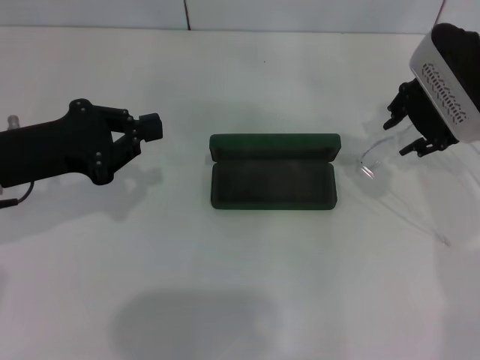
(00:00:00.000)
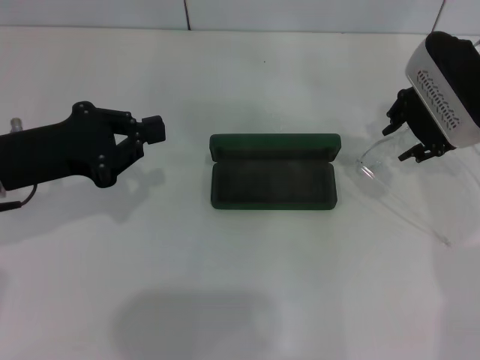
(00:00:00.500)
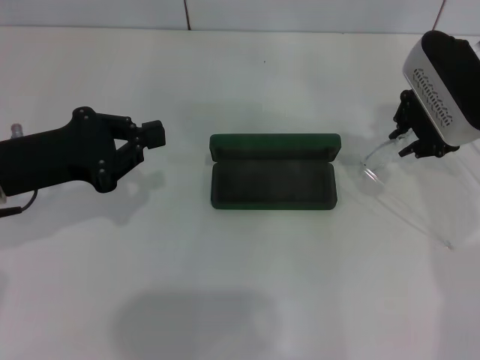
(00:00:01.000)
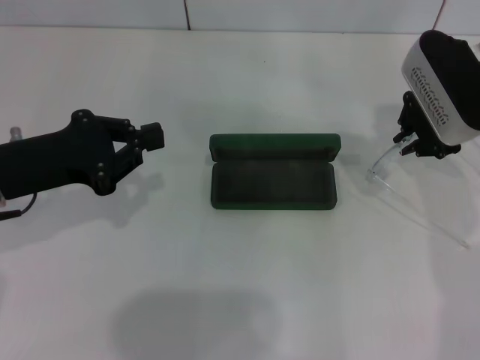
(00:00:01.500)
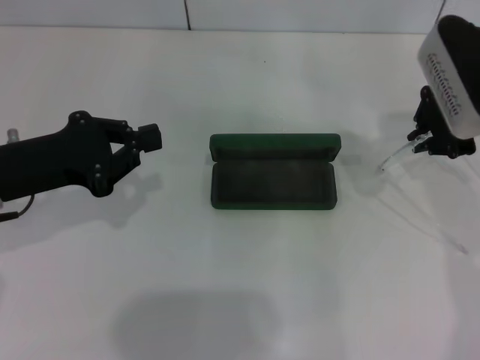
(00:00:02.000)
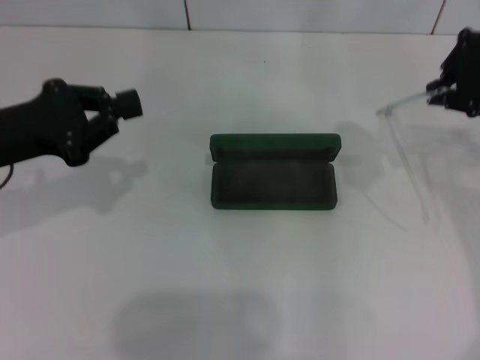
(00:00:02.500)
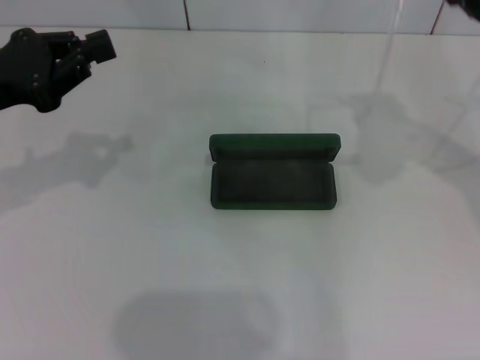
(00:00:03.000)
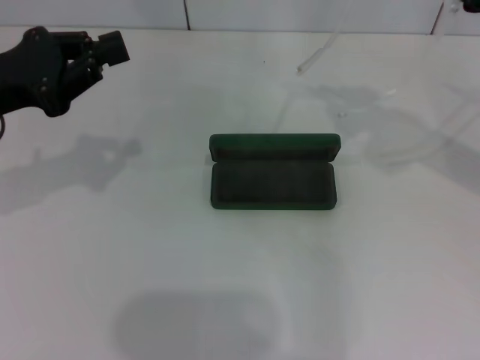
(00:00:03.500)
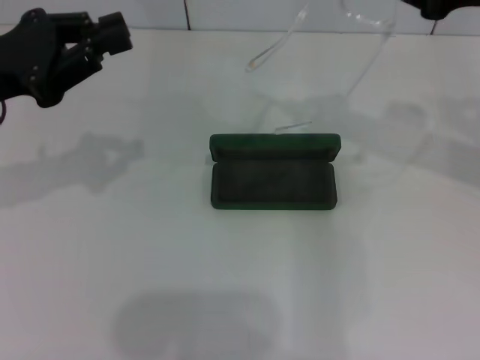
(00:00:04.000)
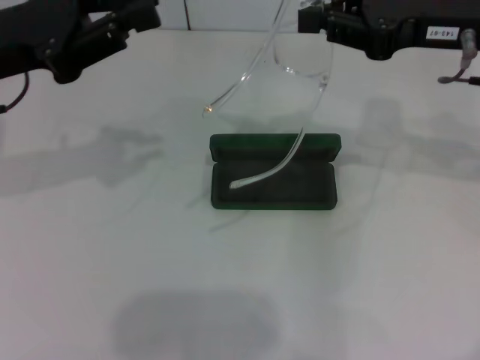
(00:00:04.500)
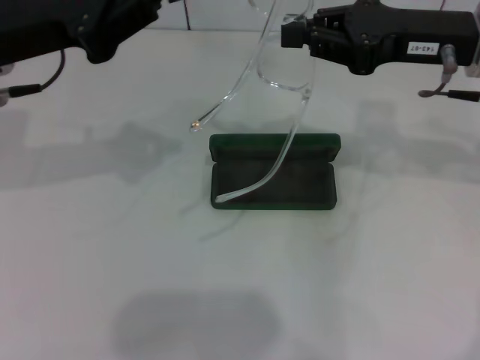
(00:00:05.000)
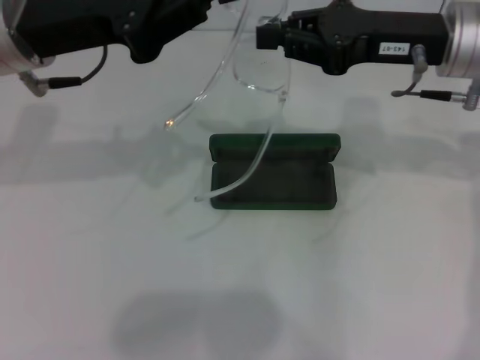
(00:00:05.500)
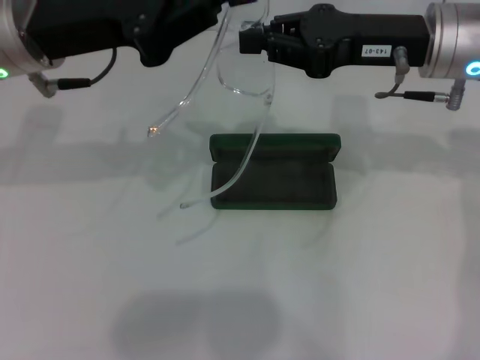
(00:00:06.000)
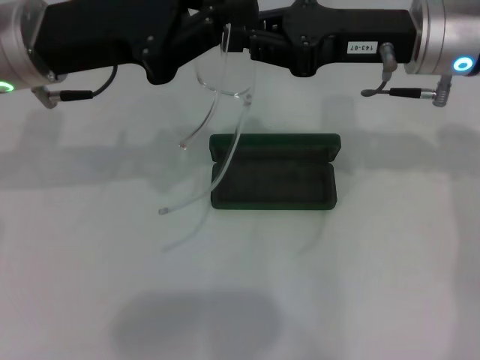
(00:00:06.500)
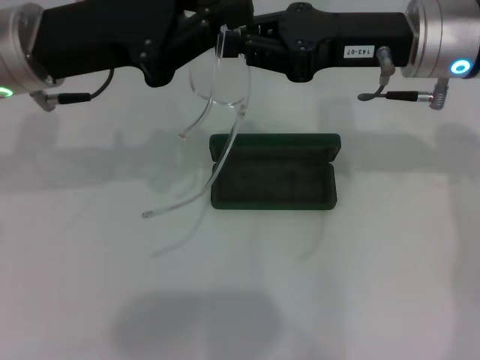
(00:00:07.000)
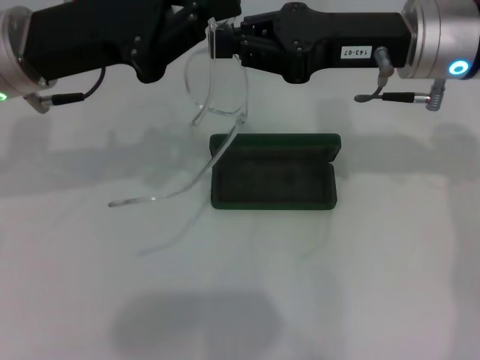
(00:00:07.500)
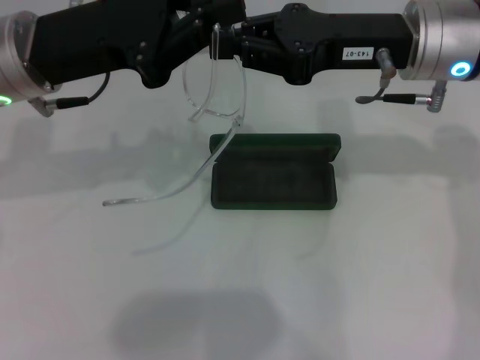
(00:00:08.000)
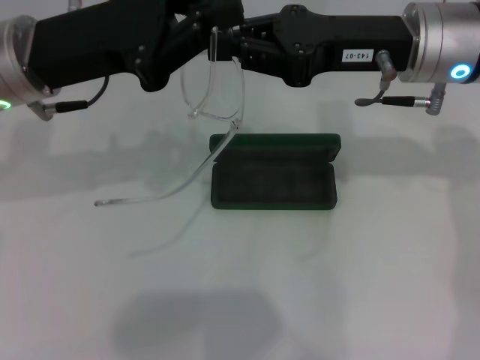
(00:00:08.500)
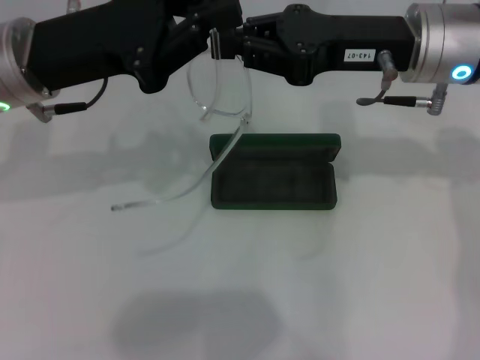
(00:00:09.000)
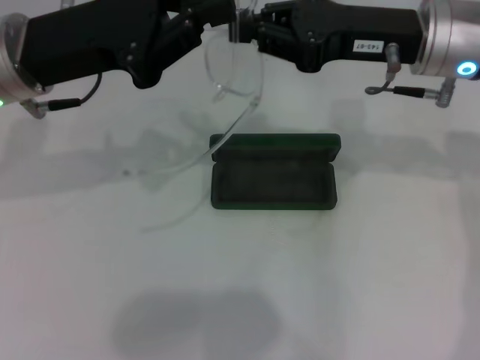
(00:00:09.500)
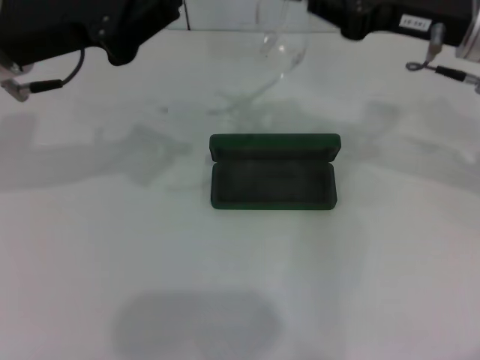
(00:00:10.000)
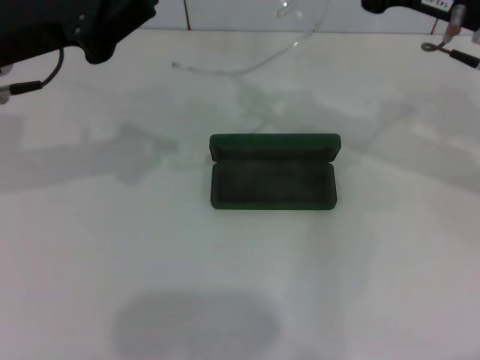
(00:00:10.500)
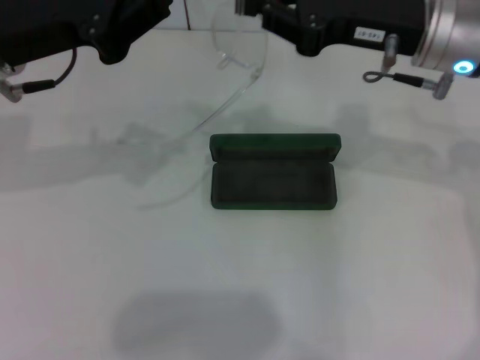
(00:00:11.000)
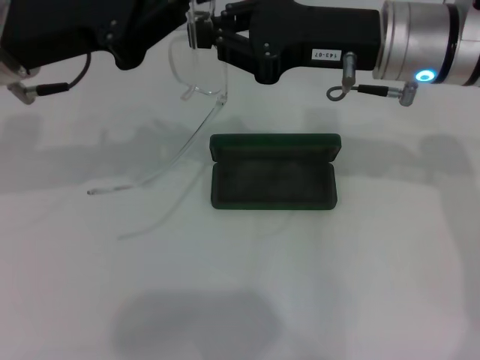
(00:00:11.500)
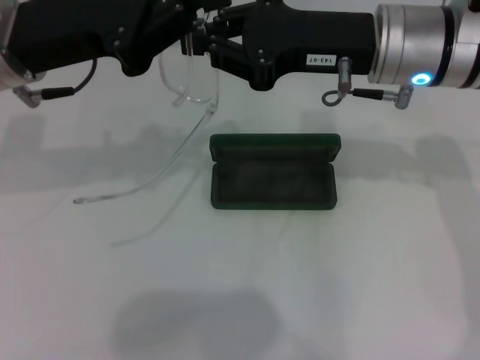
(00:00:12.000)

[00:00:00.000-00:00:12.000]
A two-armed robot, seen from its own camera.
00:00:00.000 to 00:00:02.000: The right gripper closes its fingers.
00:00:02.000 to 00:00:04.000: The left gripper heads upward, covering roughly 5 cm. Meanwhile the right gripper shifts about 10 cm upward and backward.
00:00:04.000 to 00:00:06.000: The right gripper is displaced to the left and downward by approximately 10 cm. Meanwhile the left gripper shifts approximately 10 cm to the right.
00:00:06.000 to 00:00:08.000: The grippers move only a little.
00:00:08.000 to 00:00:10.000: The right gripper travels to the right by some 5 cm.
00:00:10.000 to 00:00:12.000: The right gripper shifts about 5 cm to the left.

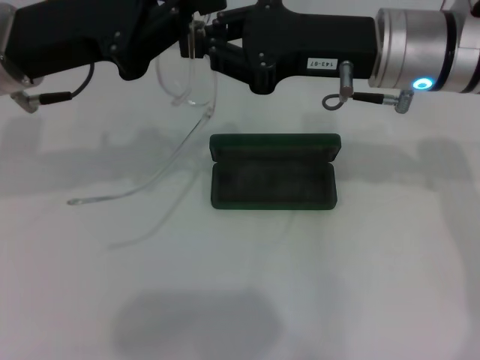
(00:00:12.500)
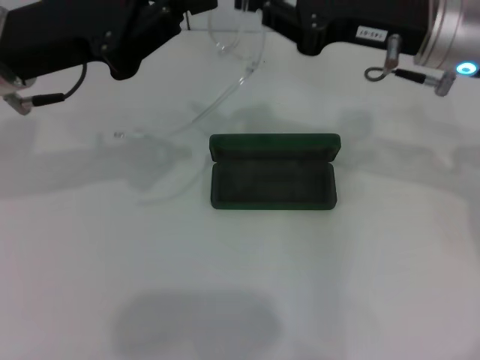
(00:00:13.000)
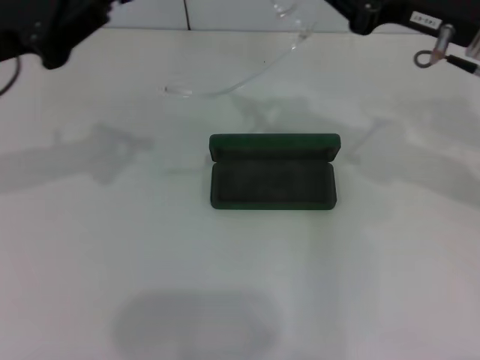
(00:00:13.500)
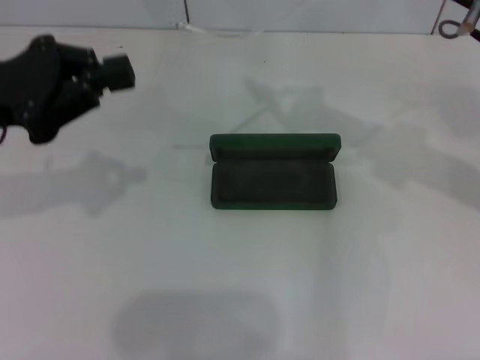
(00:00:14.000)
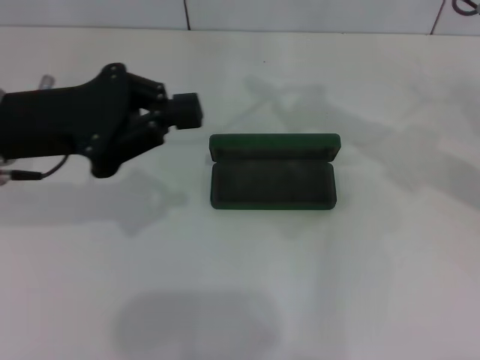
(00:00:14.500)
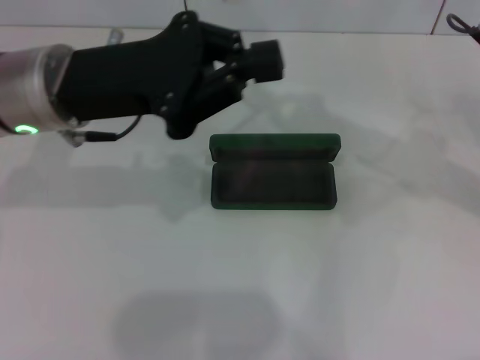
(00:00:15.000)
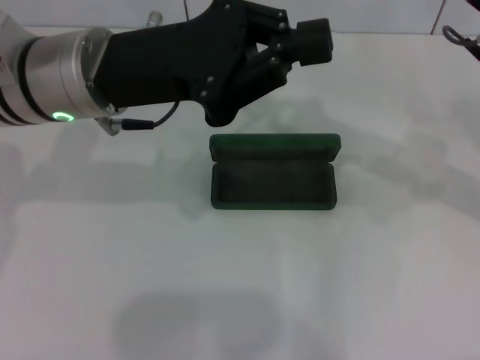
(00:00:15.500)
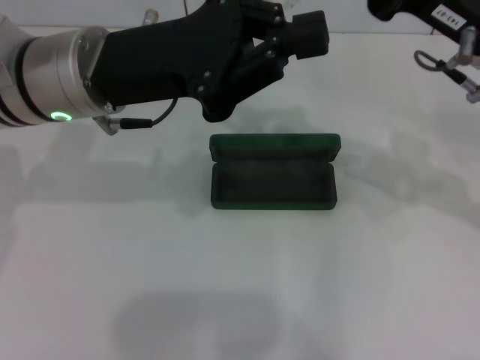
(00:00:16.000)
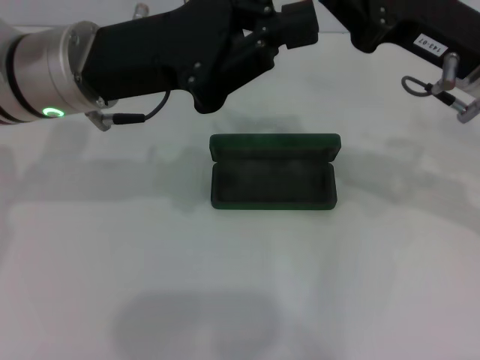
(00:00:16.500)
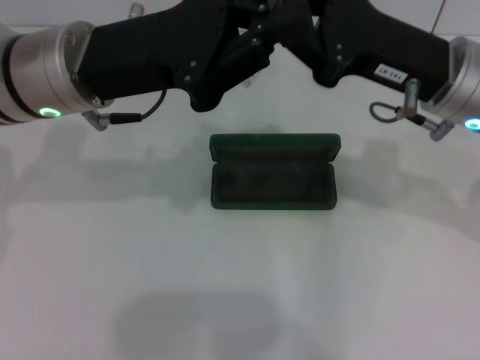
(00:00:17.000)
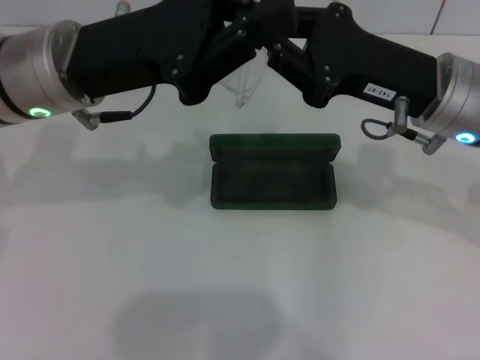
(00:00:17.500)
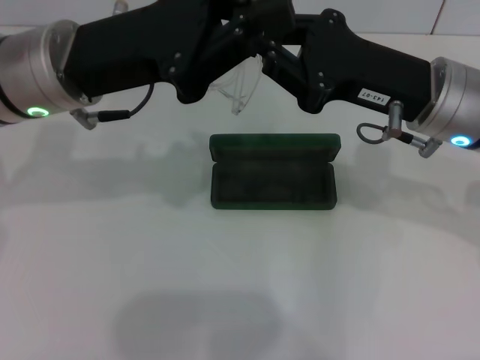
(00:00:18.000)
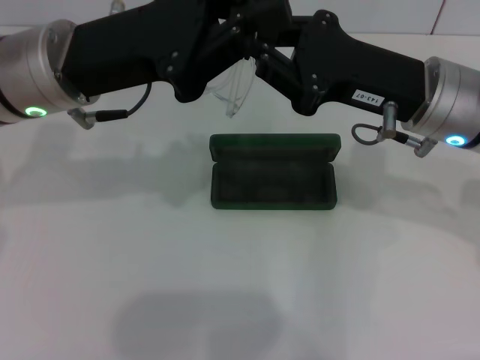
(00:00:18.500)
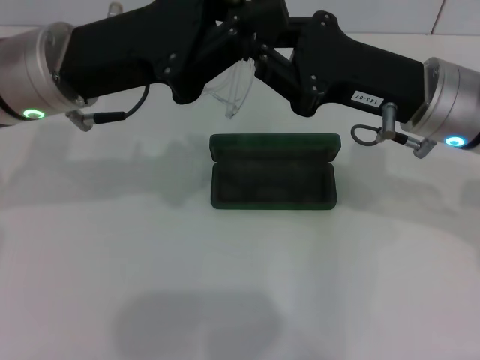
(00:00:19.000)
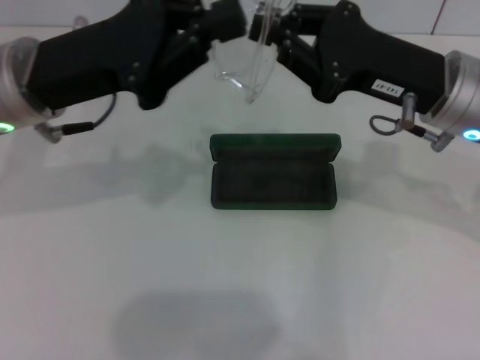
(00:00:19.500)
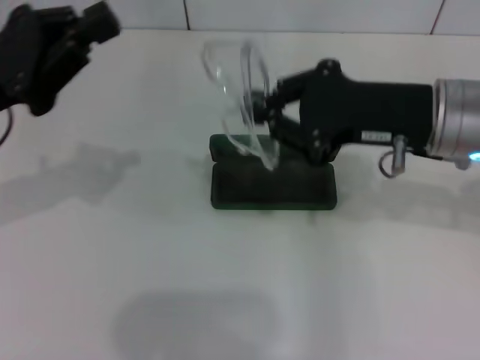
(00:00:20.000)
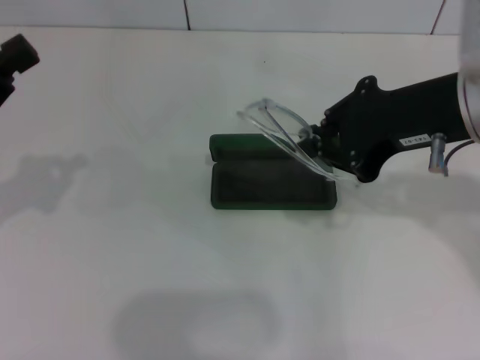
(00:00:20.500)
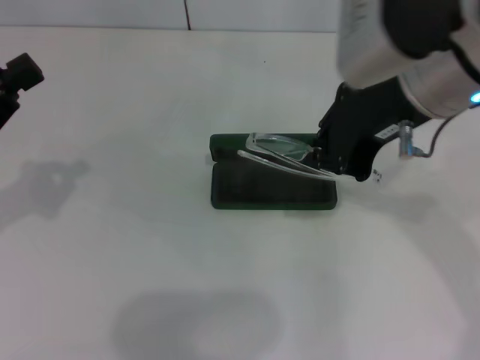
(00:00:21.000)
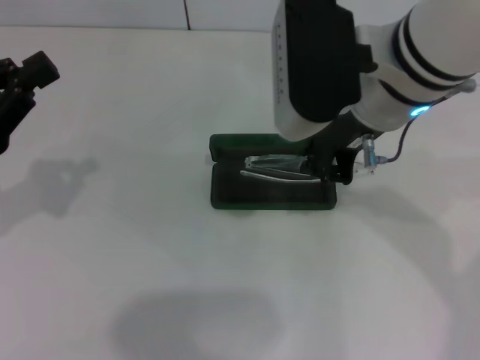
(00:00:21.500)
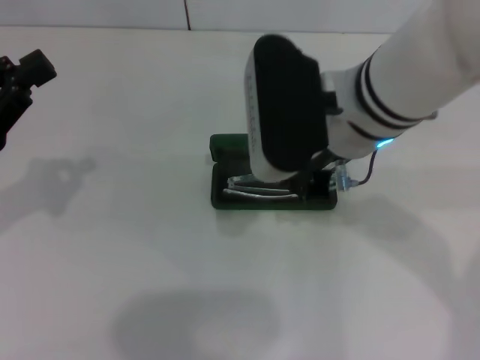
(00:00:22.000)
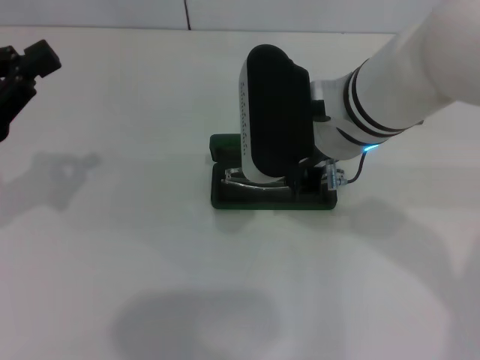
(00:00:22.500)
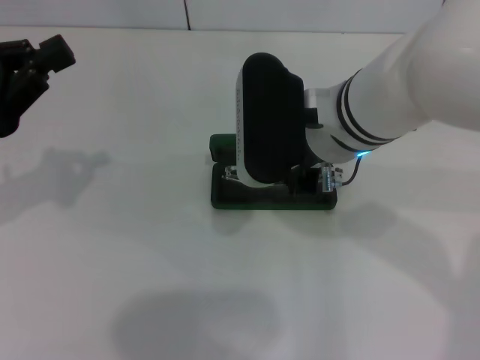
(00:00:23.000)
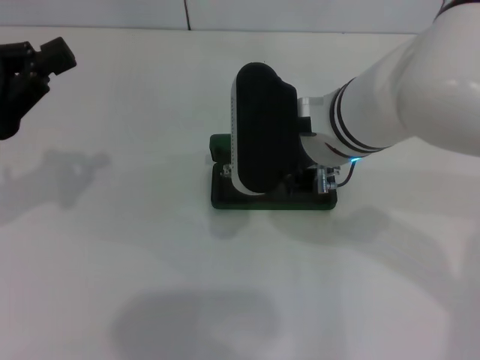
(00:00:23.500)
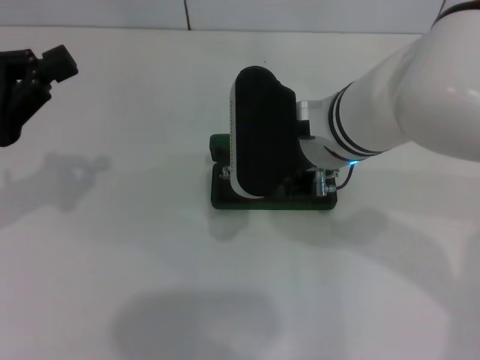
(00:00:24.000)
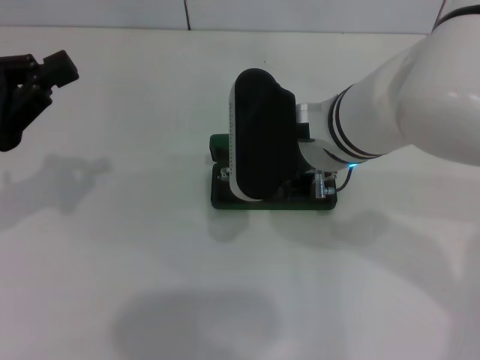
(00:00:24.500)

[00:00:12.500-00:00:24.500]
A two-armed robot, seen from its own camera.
Step, 00:00:12.500 to 00:00:17.500: Fold the frame with your left hand.
00:00:12.500 to 00:00:14.500: The right gripper travels to the right by some 10 cm.
00:00:14.500 to 00:00:16.500: The right gripper shifts by approximately 5 cm. Meanwhile the left gripper is displaced to the right by approximately 10 cm.
00:00:18.500 to 00:00:20.500: The right gripper shifts some 5 cm upward. Meanwhile the left gripper heads to the left and backward, covering about 20 cm.
00:00:20.500 to 00:00:22.500: The right gripper goes roughly 10 cm to the left and downward.
00:00:22.500 to 00:00:24.500: The grippers make only small movements.

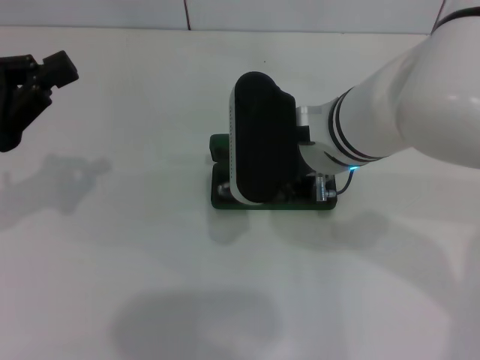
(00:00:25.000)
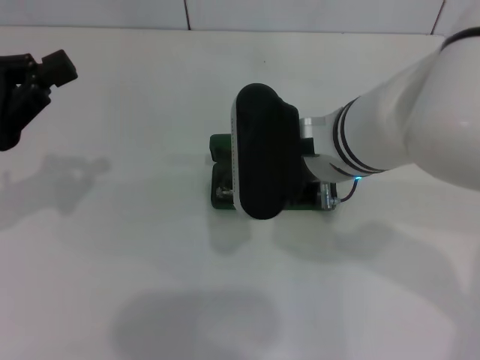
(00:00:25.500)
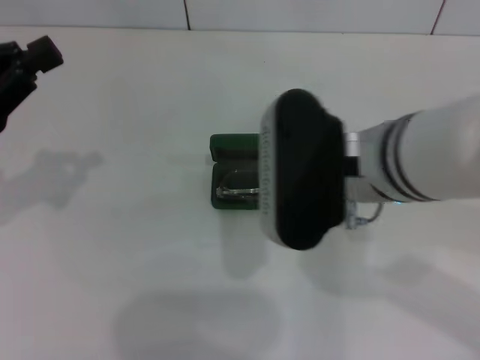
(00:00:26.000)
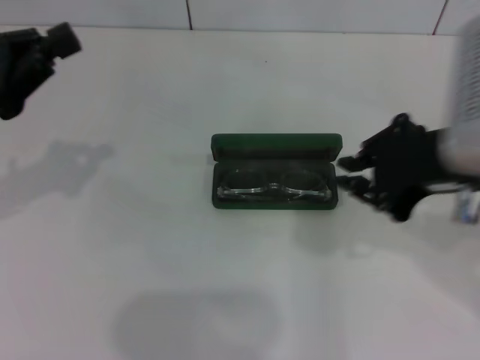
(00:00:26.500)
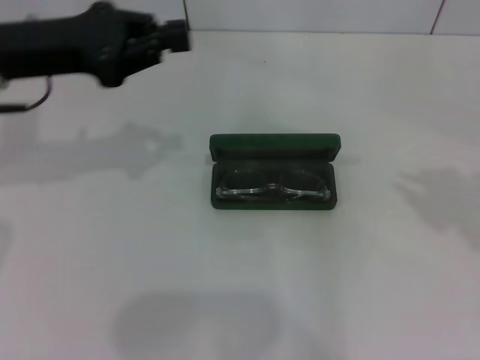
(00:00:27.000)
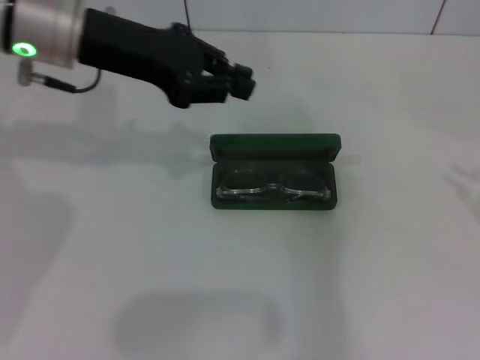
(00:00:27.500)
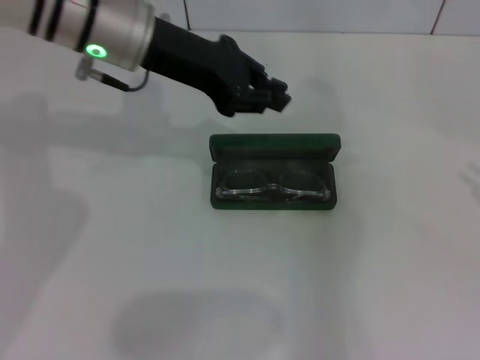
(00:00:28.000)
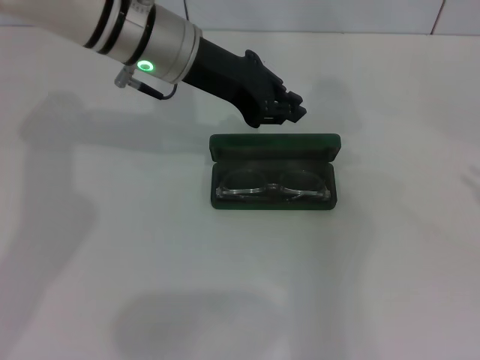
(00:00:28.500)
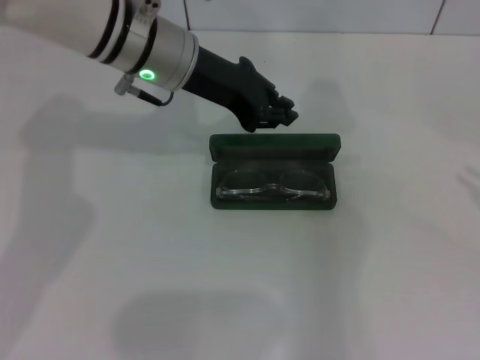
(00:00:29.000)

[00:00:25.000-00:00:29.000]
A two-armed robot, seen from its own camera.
00:00:25.000 to 00:00:27.000: The left gripper travels forward, to the right and upward by approximately 10 cm. Meanwhile the right gripper is displaced to the right by some 30 cm.
00:00:27.000 to 00:00:29.000: The right gripper heads to the right and downward, covering roughly 10 cm. The left gripper heads to the right and forward, covering roughly 15 cm.